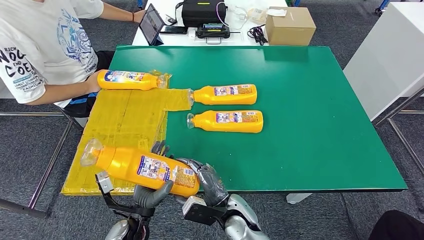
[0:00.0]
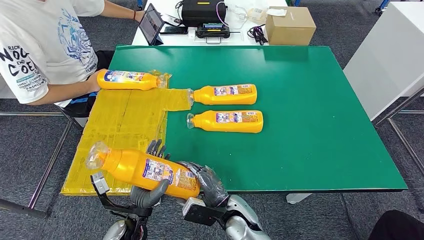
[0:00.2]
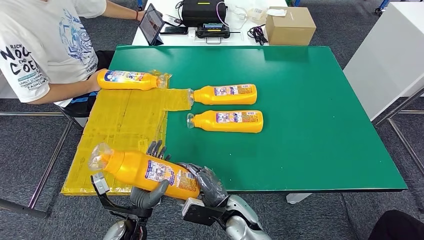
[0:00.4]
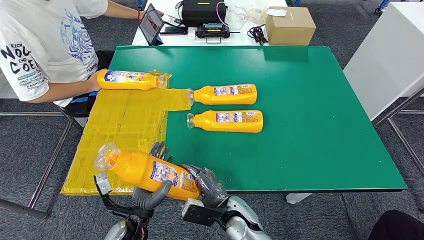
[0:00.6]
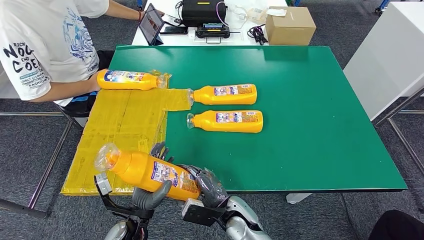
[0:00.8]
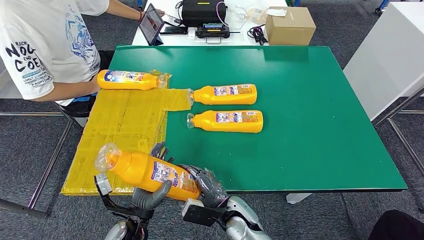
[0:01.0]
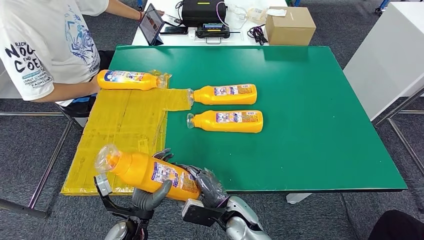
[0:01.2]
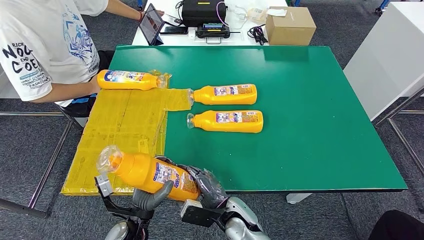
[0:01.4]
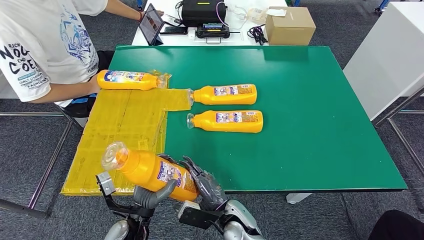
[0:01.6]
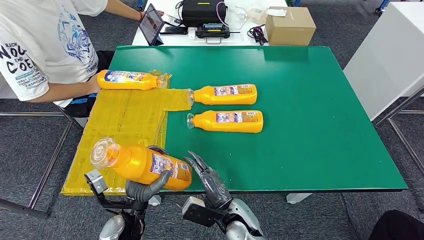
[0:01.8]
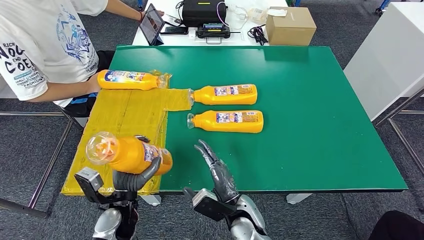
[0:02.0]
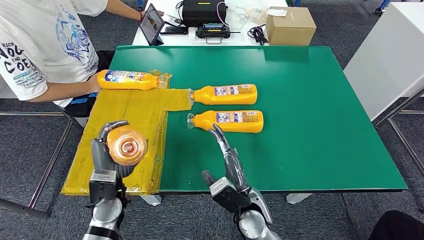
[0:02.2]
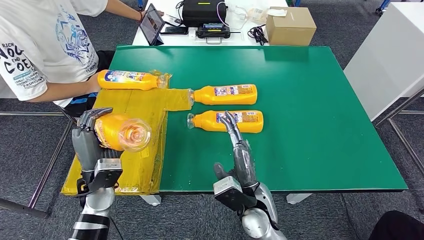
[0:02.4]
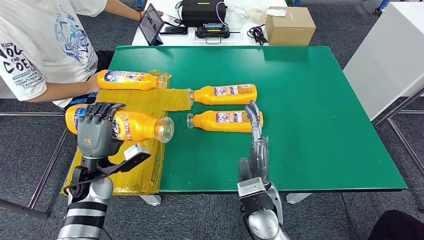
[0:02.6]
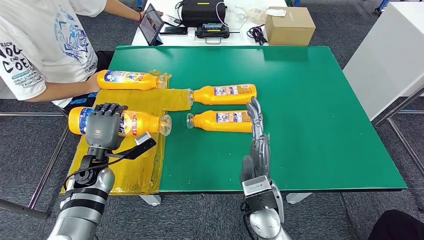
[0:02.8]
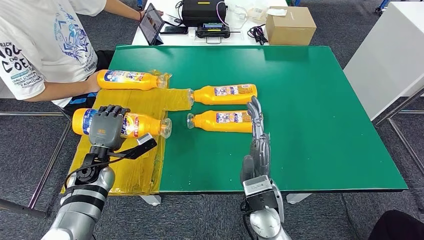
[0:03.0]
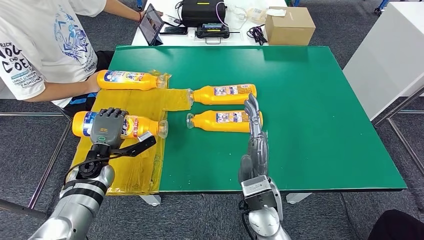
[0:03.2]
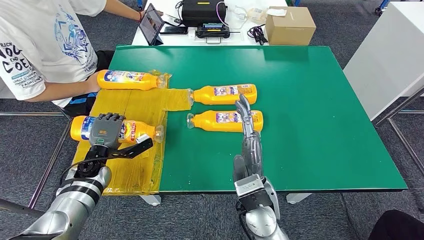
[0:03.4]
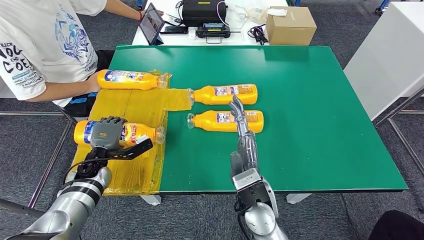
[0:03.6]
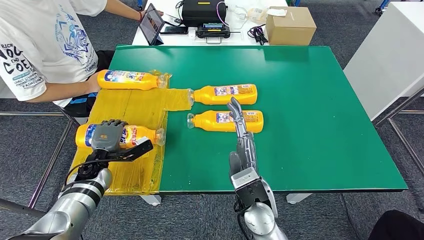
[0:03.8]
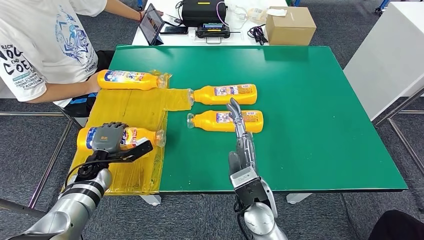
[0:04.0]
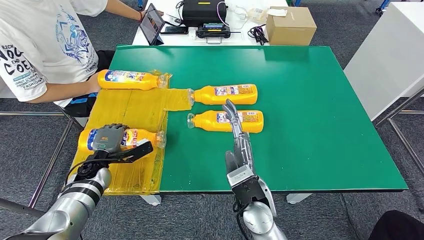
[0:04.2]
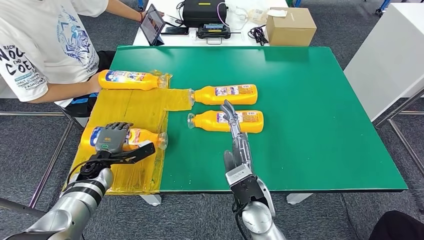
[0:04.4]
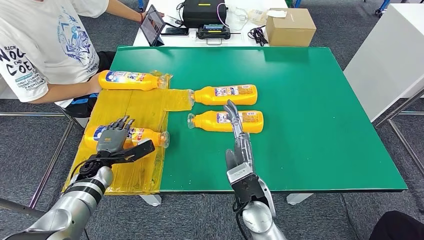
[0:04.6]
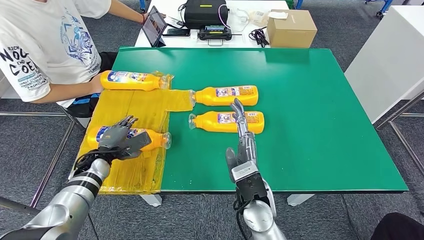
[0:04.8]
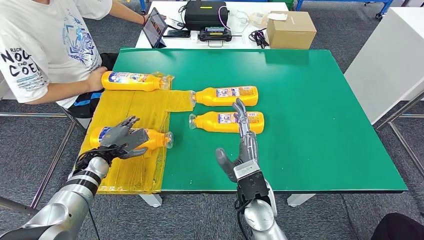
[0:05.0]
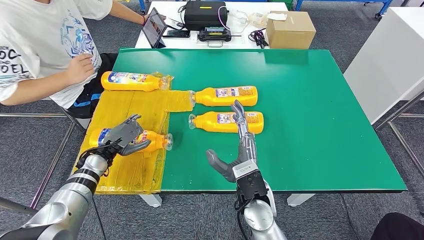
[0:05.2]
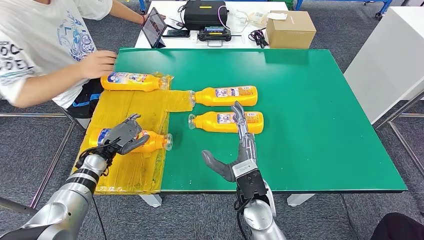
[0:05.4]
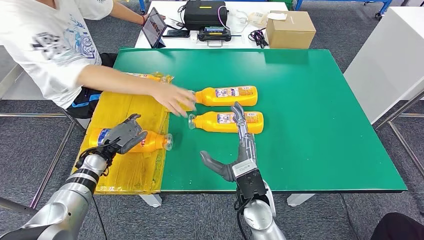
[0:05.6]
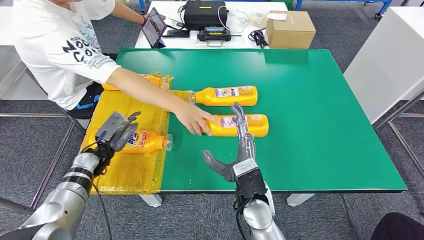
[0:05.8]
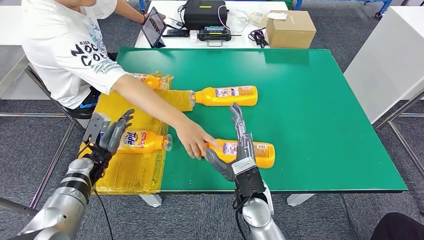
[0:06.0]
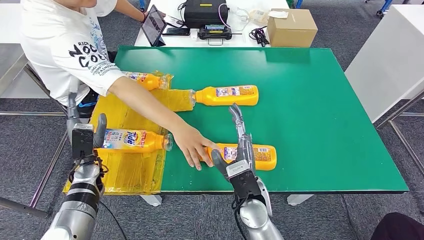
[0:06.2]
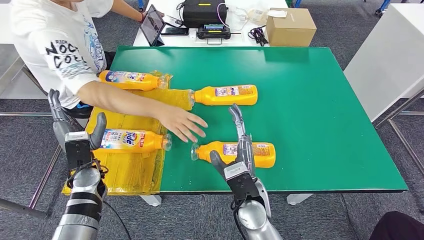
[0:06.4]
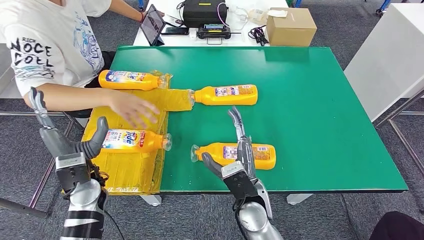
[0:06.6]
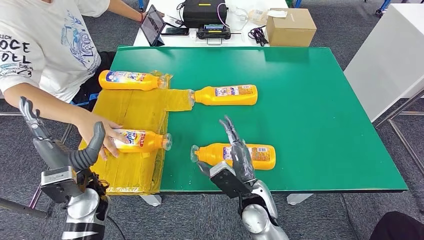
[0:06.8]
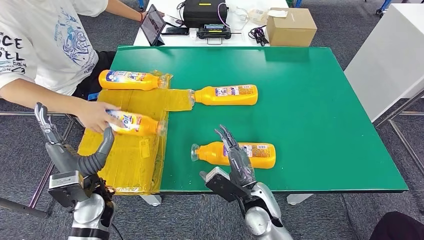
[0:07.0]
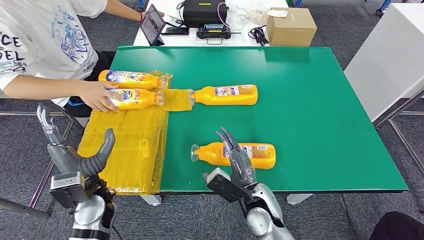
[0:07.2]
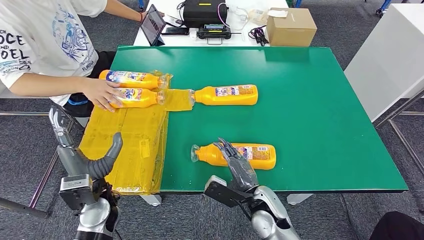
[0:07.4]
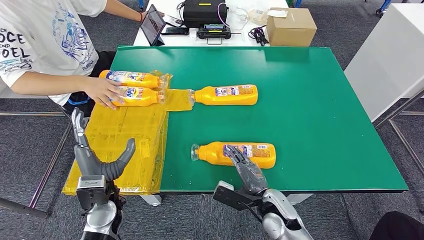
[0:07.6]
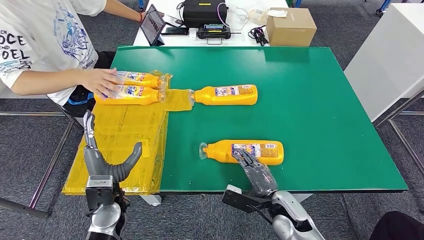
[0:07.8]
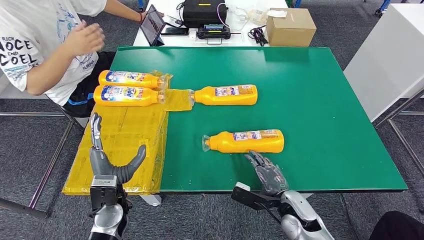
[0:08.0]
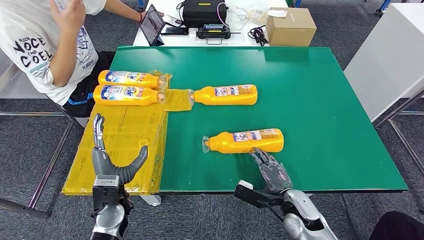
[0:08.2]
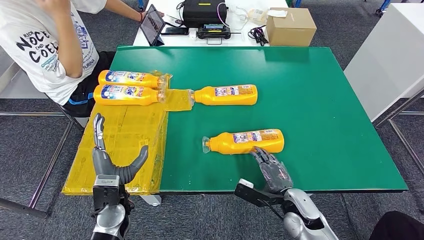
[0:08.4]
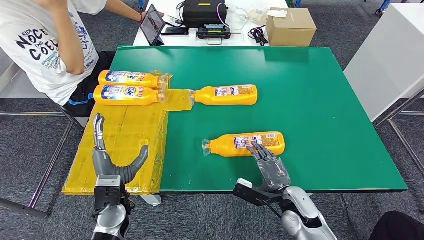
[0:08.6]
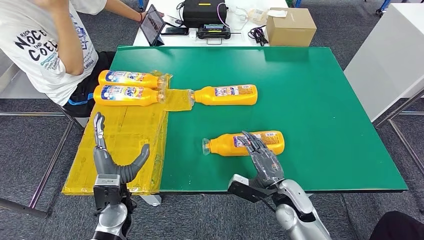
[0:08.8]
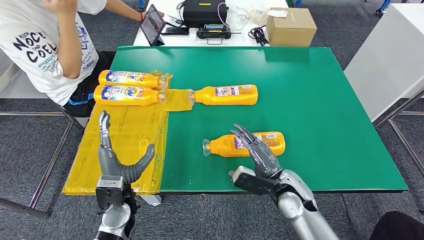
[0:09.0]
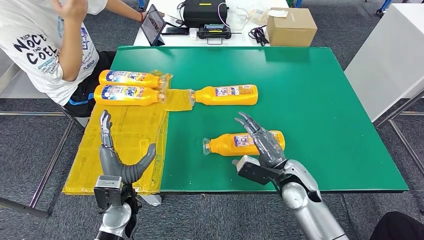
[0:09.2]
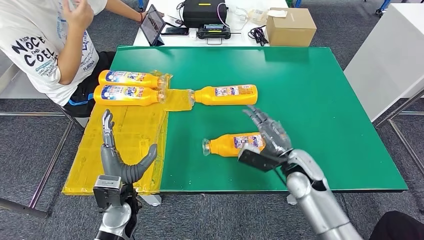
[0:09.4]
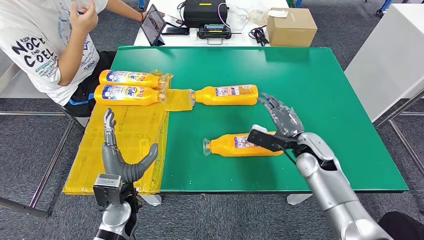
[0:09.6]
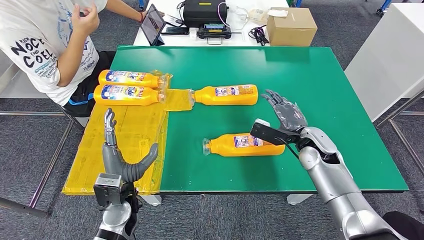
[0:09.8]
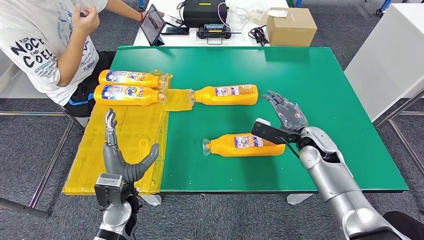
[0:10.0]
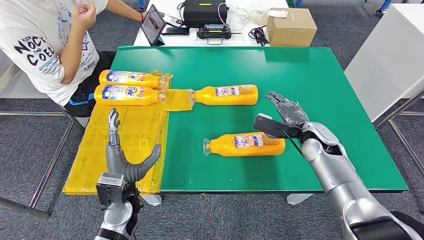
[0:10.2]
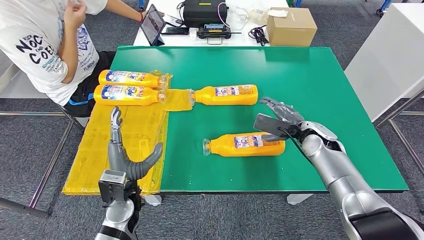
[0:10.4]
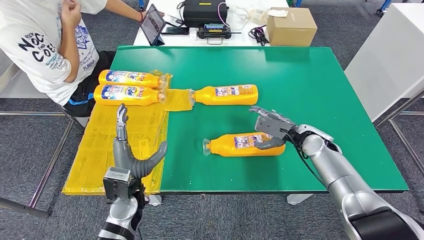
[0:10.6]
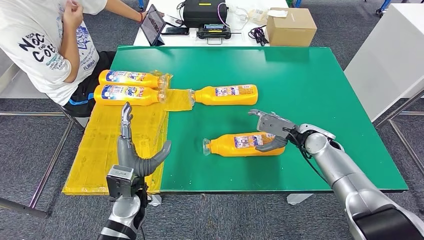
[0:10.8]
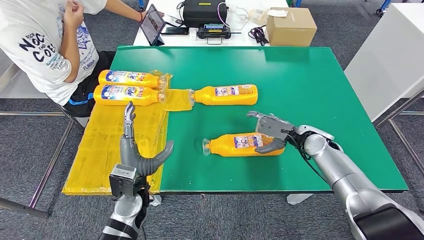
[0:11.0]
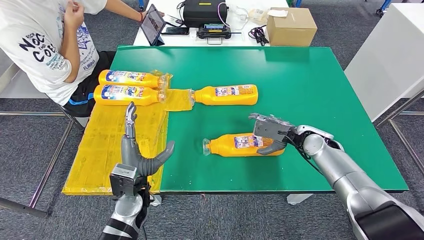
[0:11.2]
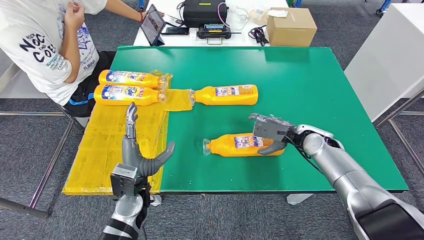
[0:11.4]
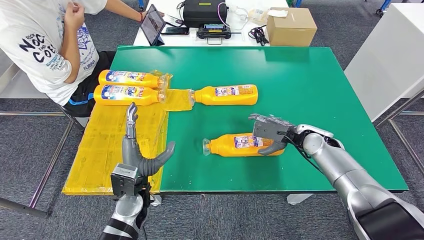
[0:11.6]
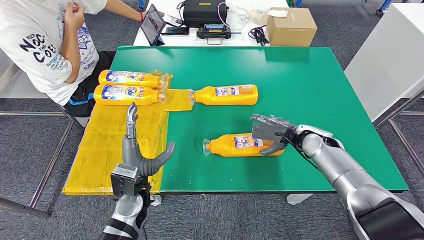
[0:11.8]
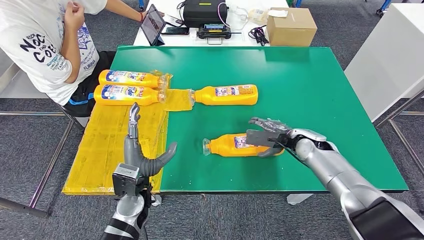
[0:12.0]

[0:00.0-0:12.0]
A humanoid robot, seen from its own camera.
Step, 0:00.0 to 0:04.0: Flip the fast-moving consumer goods bottle to the front side.
0:00.0 to 0:01.6: The hands stay close to where they were, moving slightly.
0:01.6 to 0:03.0: The left hand moves forward and to the left, about 20 cm. The right hand travels upward by roughly 15 cm.
0:07.6 to 0:09.0: The right hand changes place by about 5 cm.
0:09.0 to 0:10.4: The right hand travels forward and to the right by about 15 cm.

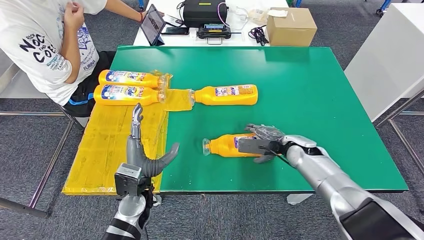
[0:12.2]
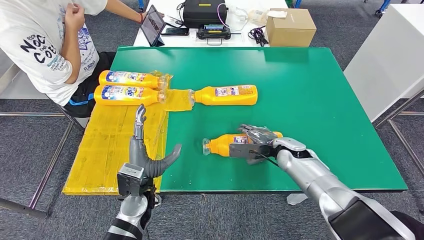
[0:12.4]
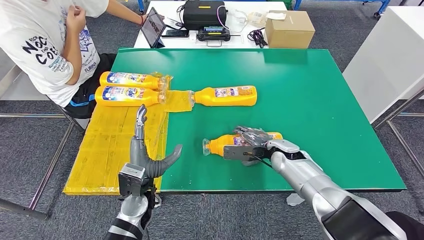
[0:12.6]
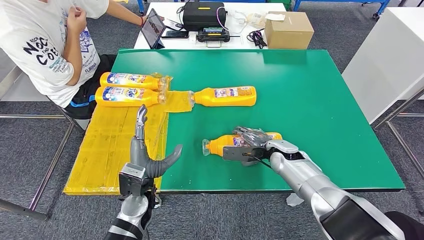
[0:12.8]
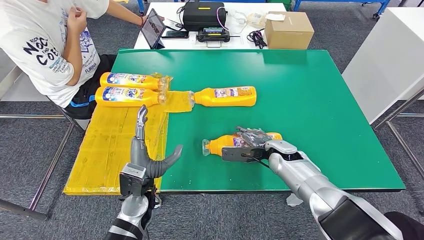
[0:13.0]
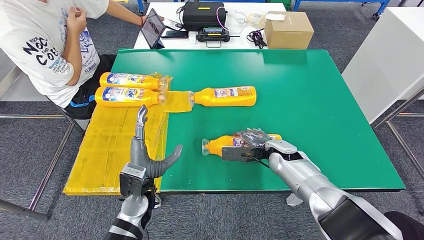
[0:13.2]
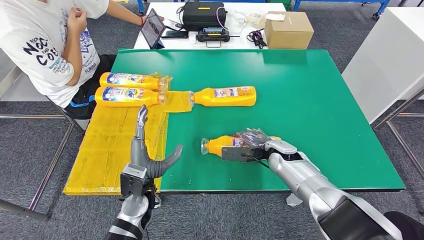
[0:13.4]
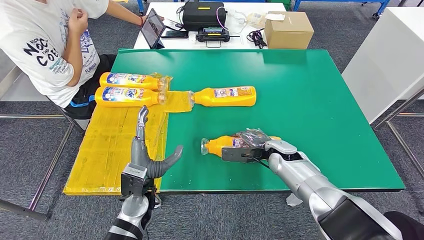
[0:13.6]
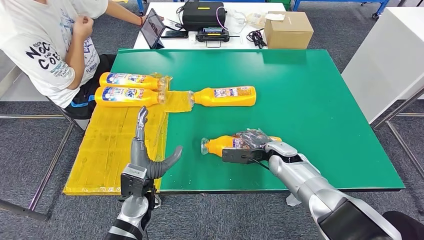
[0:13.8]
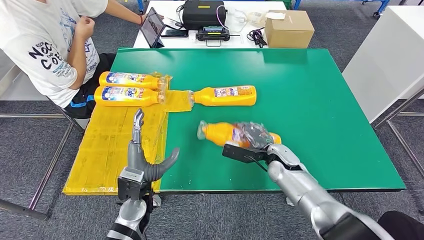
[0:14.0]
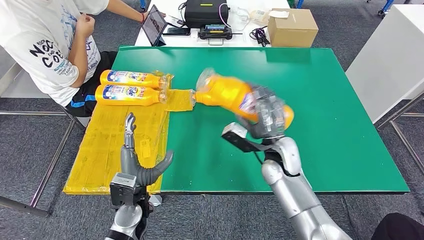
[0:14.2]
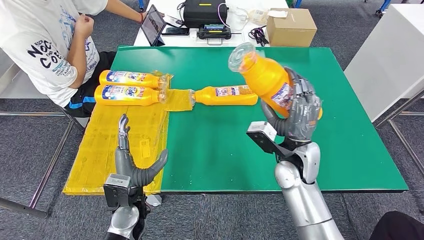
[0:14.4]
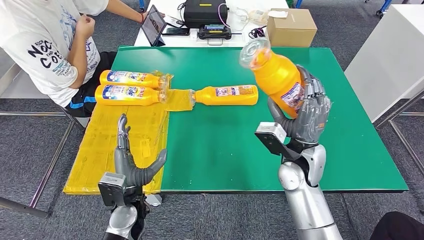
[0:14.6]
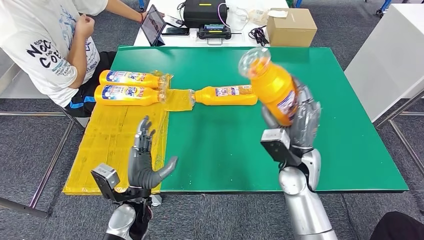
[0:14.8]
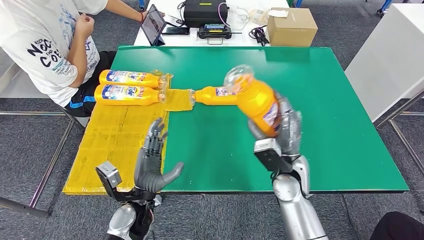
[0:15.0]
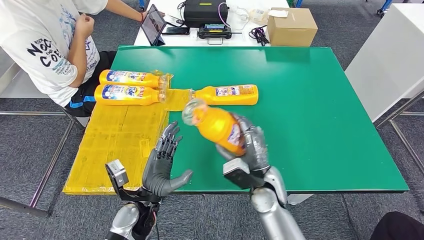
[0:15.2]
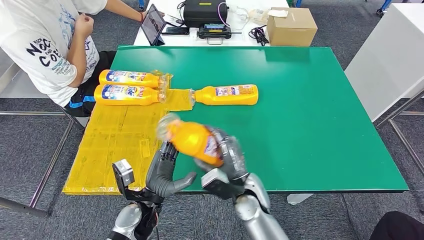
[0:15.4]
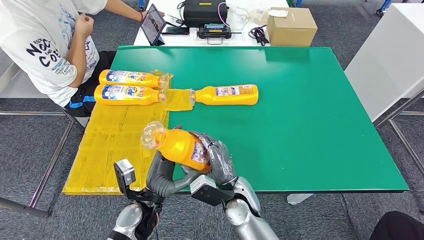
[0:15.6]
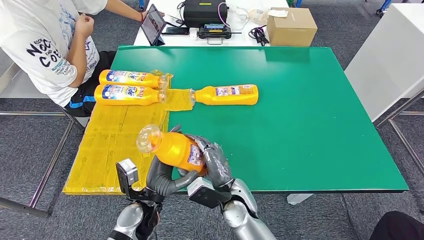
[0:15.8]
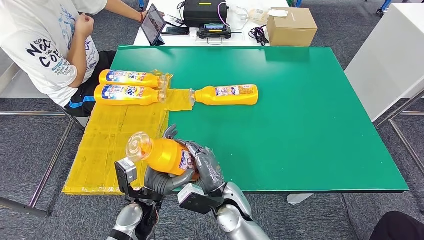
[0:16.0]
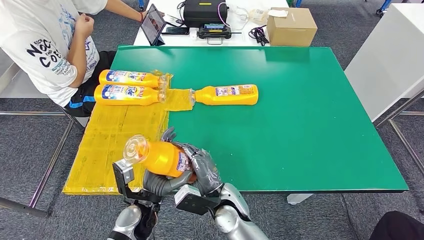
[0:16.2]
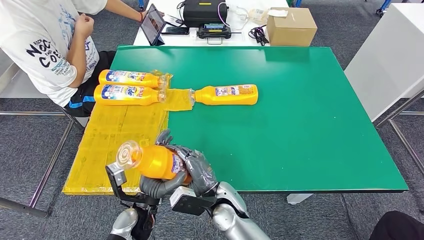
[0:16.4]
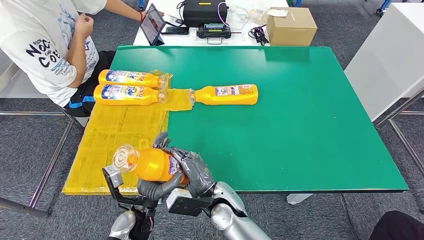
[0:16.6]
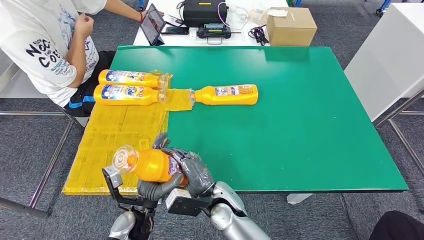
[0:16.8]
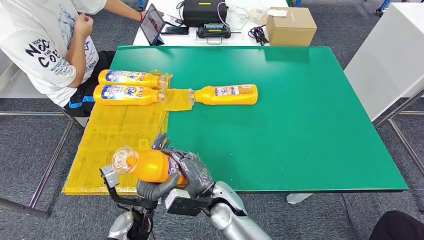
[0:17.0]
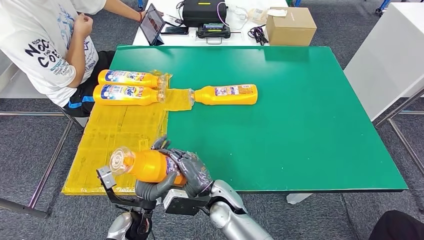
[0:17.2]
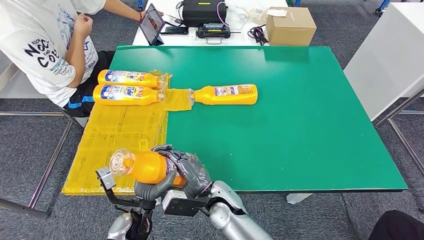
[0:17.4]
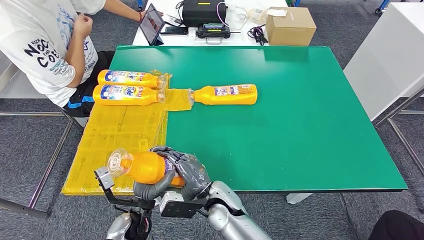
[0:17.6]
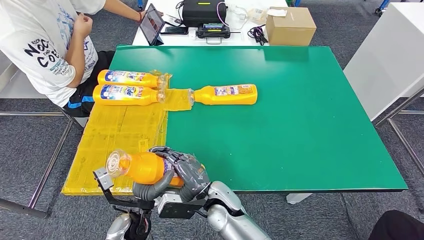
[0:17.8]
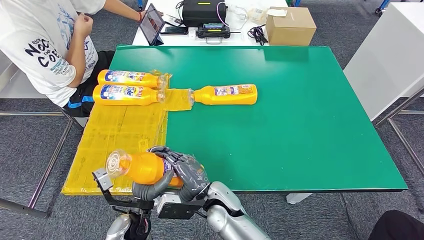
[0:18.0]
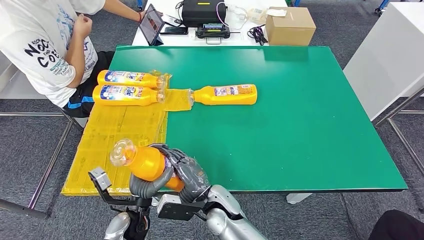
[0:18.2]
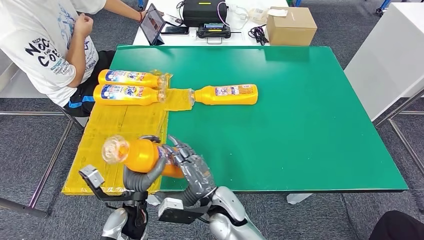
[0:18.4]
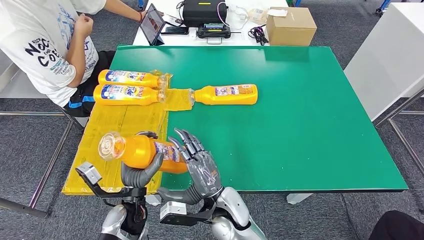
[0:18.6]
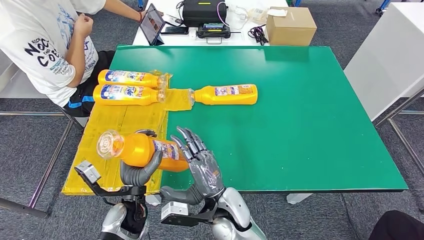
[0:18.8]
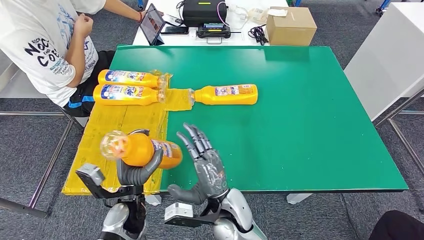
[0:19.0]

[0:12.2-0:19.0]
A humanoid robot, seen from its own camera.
Step, 0:12.2 to 0:15.4: Pick up the fast-moving consumer goods bottle from the table.
0:15.0 to 0:16.2: The right hand goes approximately 15 cm to the left, downward and backward.
0:16.2 to 0:17.6: The hands stay close to where they were, moving slightly.
0:17.6 to 0:19.0: The right hand changes place by about 5 cm.
